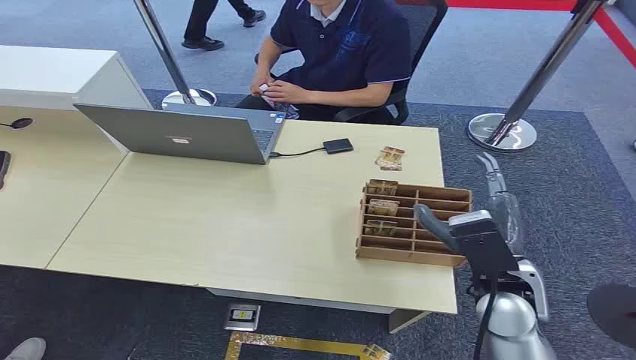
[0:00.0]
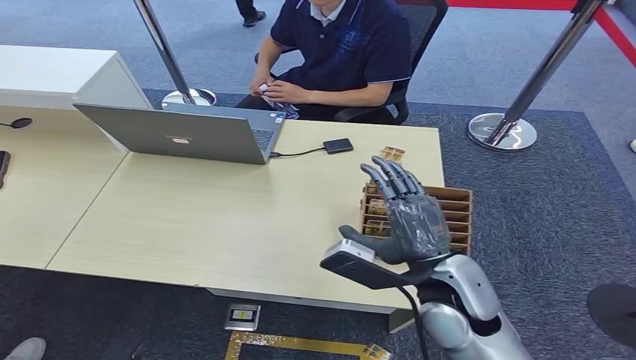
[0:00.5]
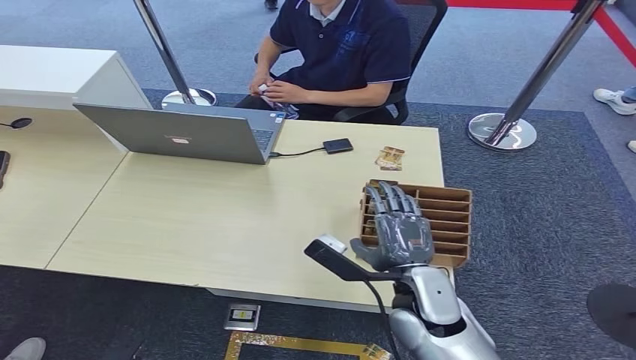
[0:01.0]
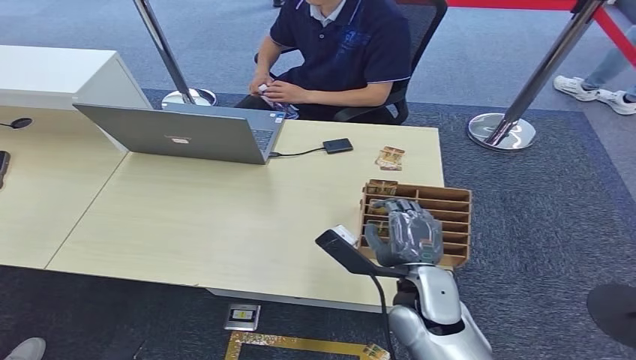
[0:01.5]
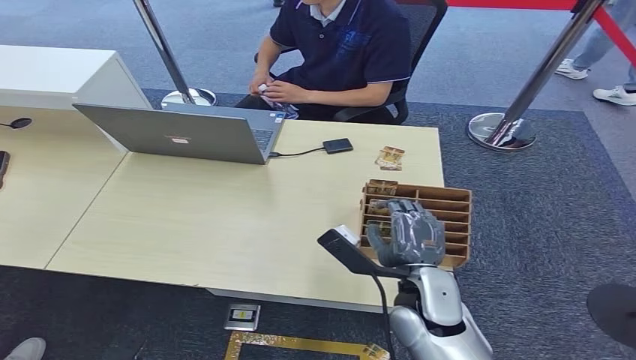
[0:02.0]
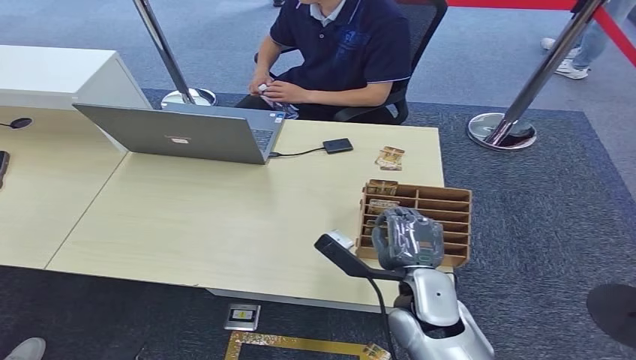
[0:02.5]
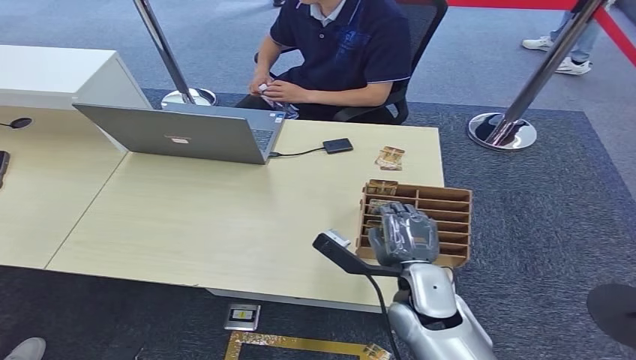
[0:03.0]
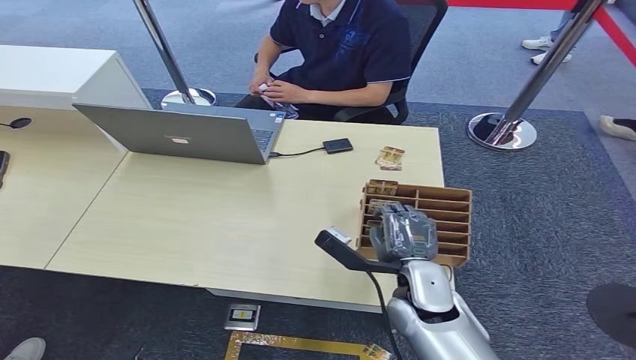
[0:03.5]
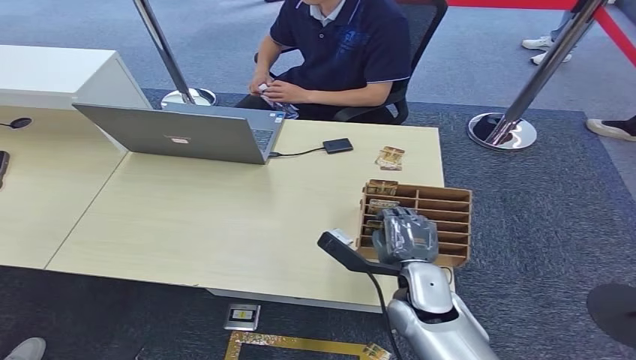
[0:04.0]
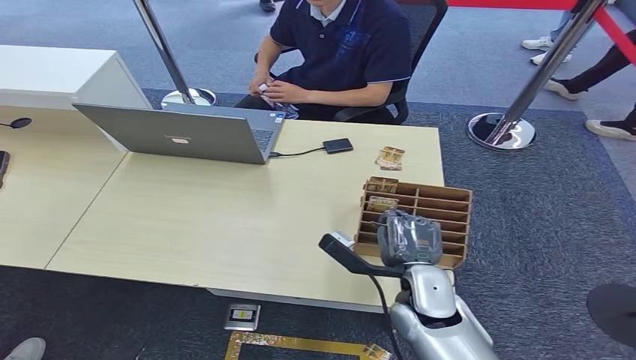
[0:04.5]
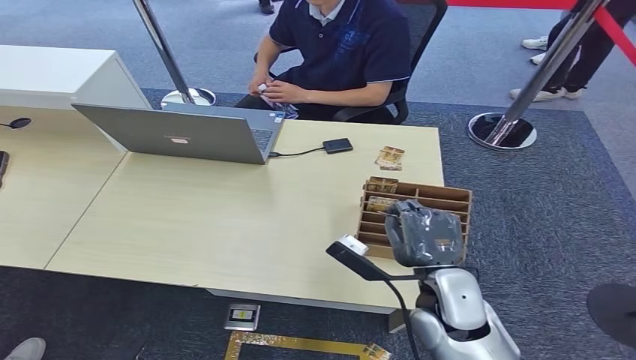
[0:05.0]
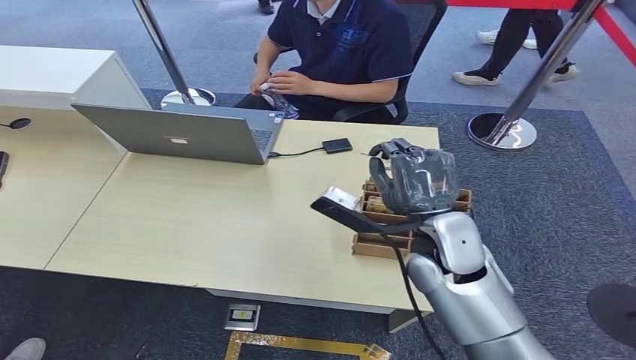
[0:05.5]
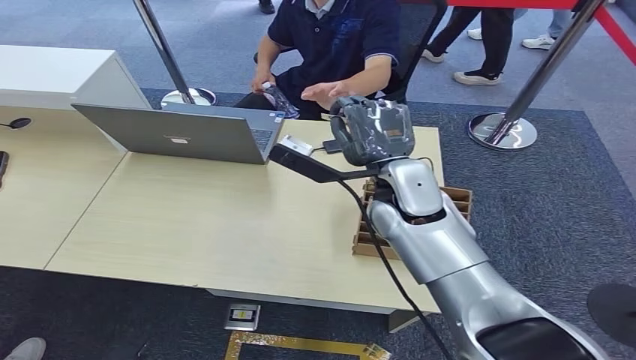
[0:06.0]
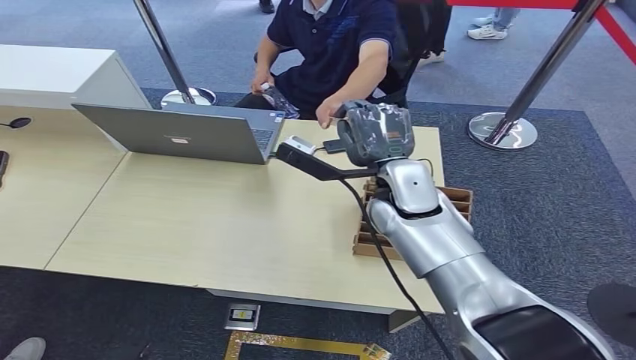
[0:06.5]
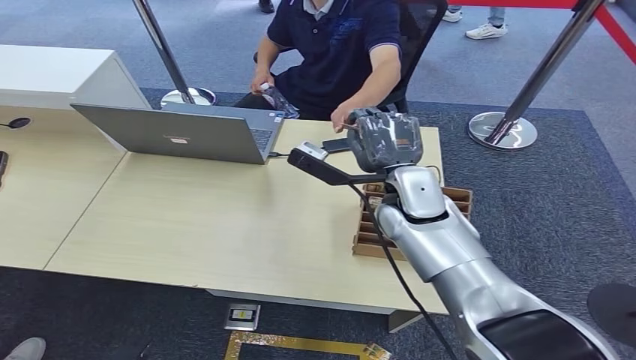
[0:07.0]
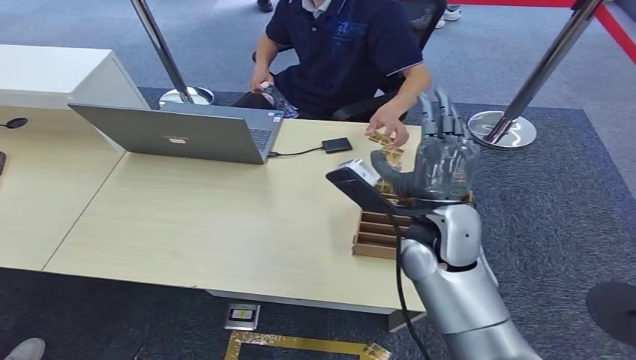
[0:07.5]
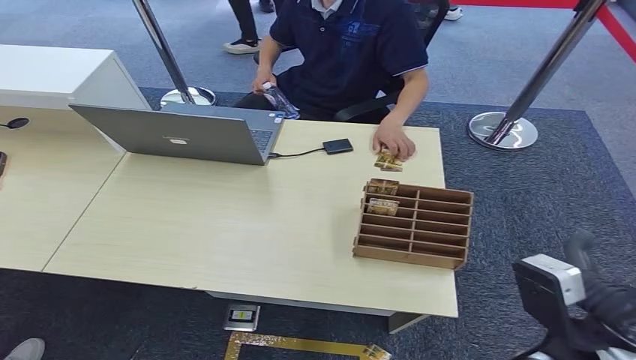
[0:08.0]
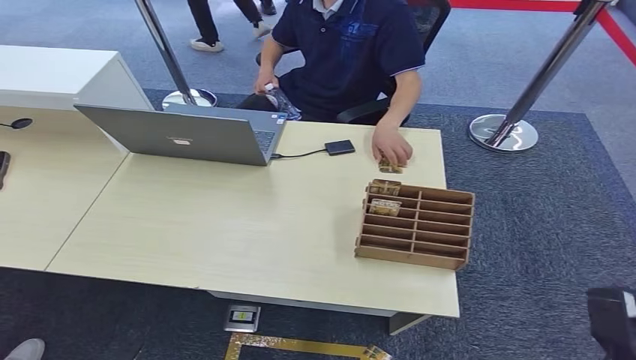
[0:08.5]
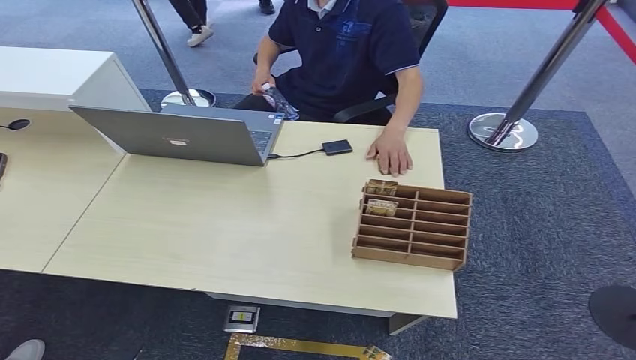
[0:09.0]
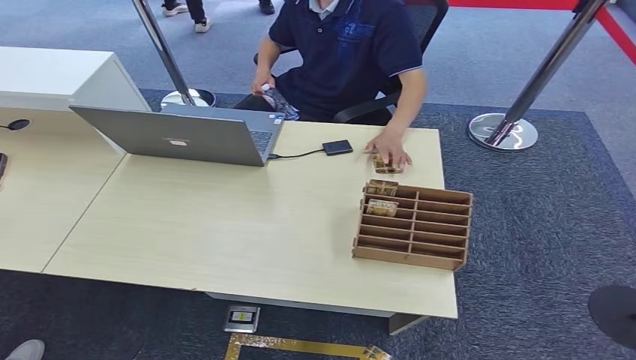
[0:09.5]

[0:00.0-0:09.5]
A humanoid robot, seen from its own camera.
Step, 0:00.0 to 0:04.5: Pick up the room card from the card holder.
Step, 0:05.0 to 0:09.5: Hand the room card to the target.
0:02.0 to 0:04.0: There are only small adjustments of the hands.
0:04.0 to 0:05.5: The right hand shifts approximately 15 cm upward and forward.
0:05.5 to 0:07.5: The right hand reaches approximately 10 cm forward, then returns.
0:07.5 to 0:09.5: The right hand moves backward, downward and to the right, roughly 40 cm.
